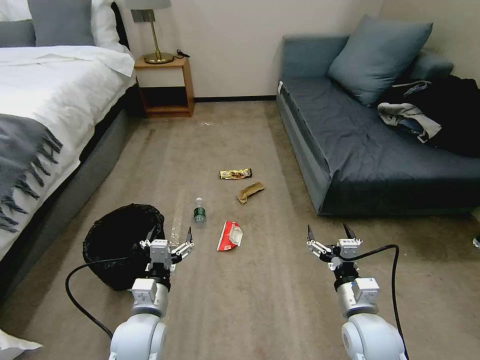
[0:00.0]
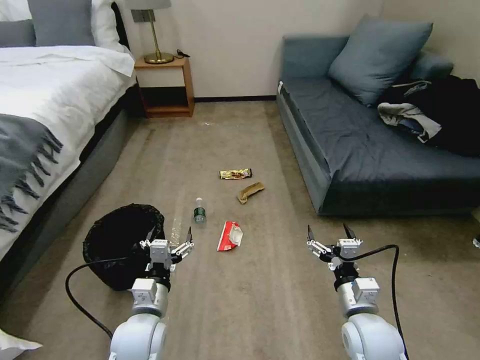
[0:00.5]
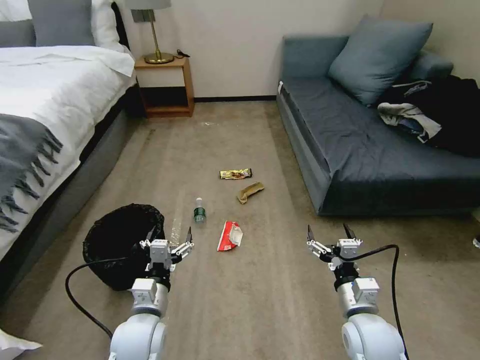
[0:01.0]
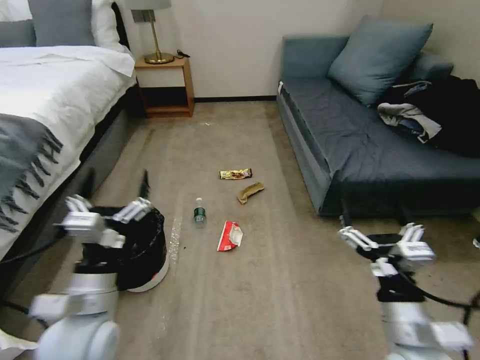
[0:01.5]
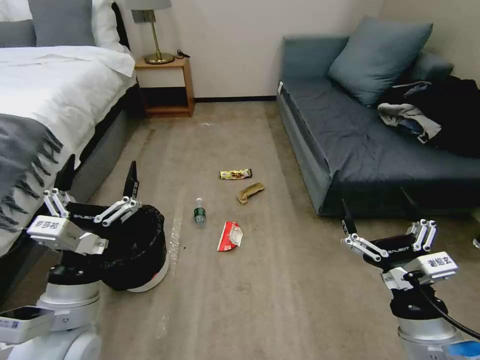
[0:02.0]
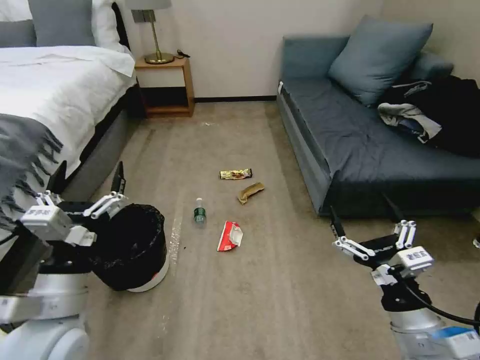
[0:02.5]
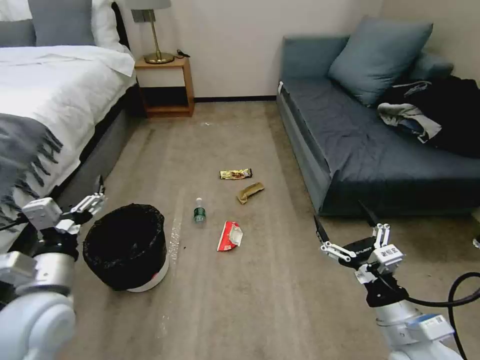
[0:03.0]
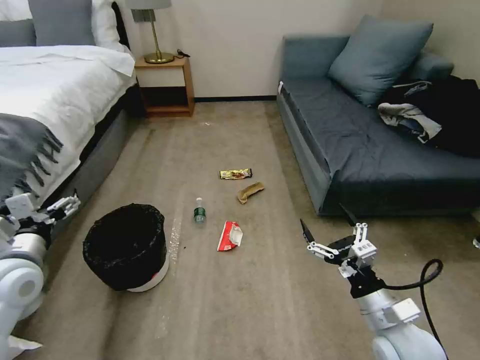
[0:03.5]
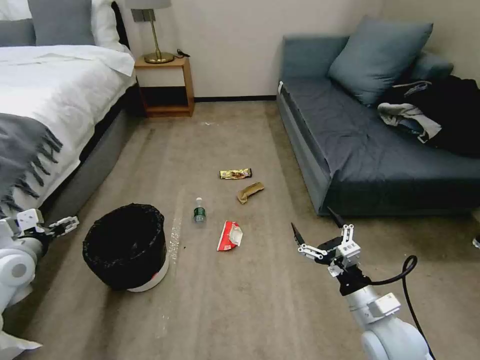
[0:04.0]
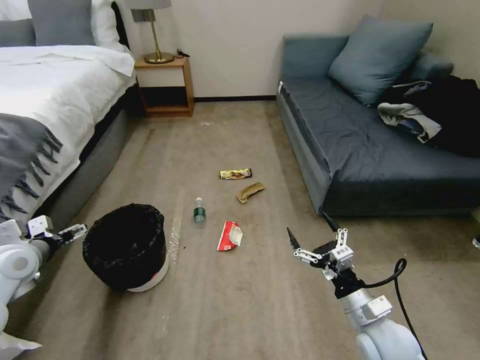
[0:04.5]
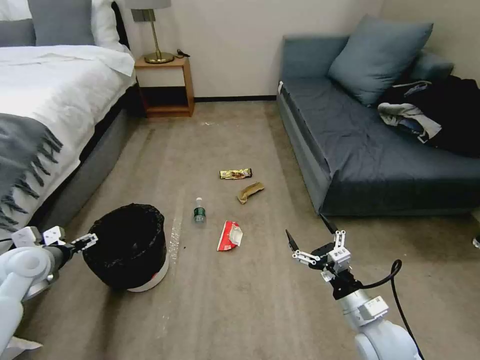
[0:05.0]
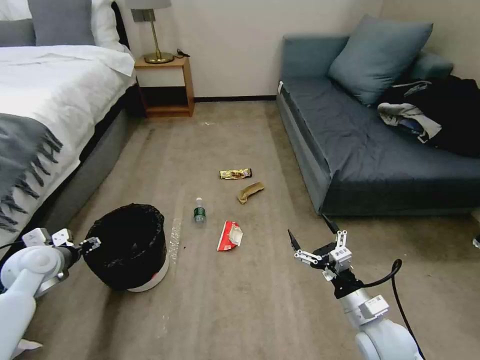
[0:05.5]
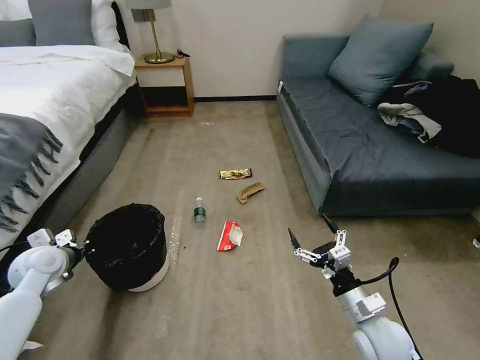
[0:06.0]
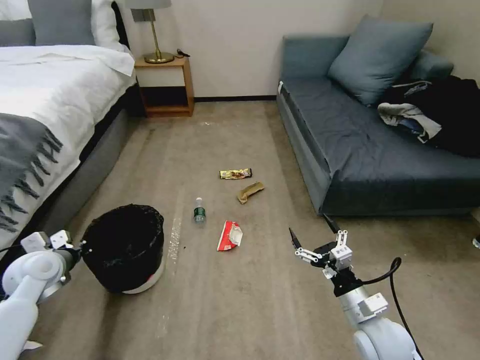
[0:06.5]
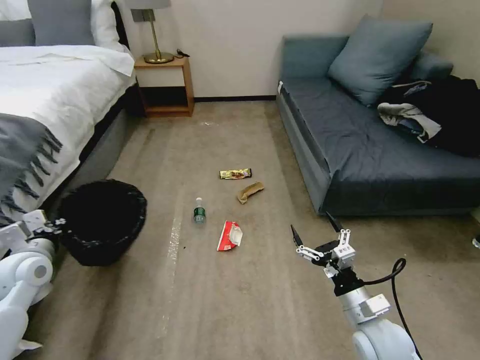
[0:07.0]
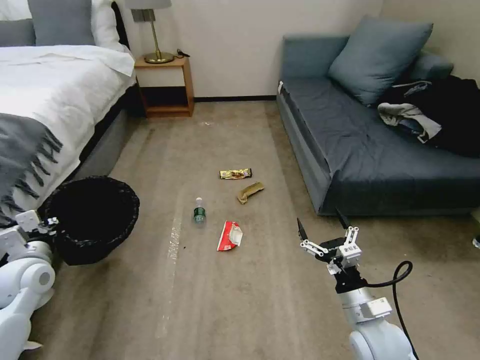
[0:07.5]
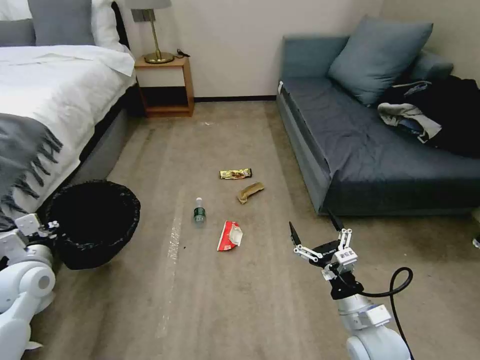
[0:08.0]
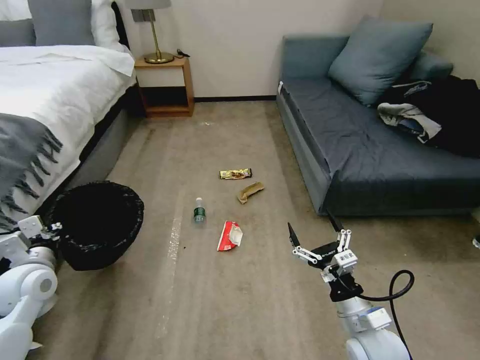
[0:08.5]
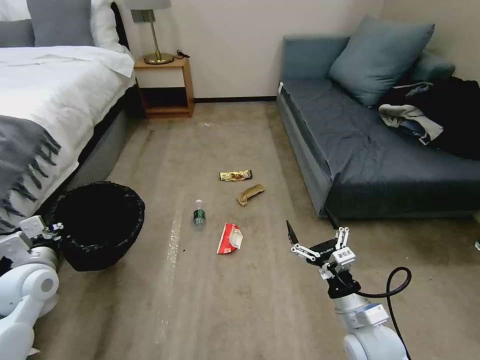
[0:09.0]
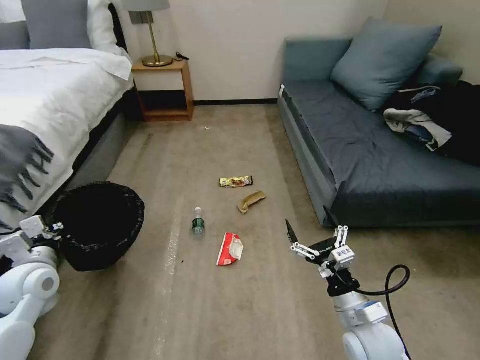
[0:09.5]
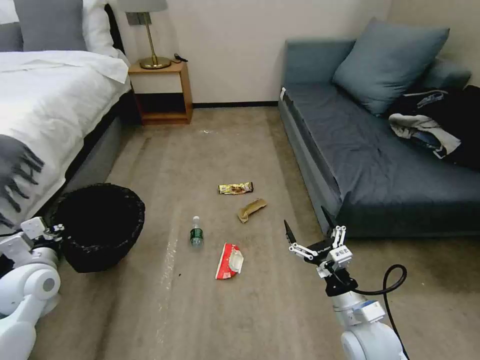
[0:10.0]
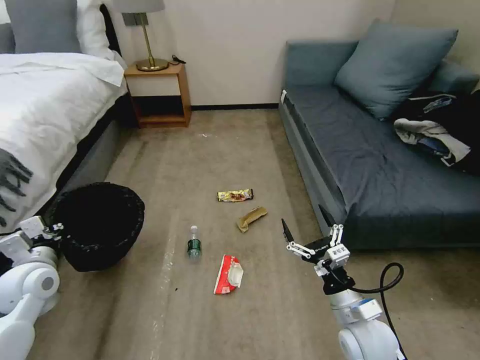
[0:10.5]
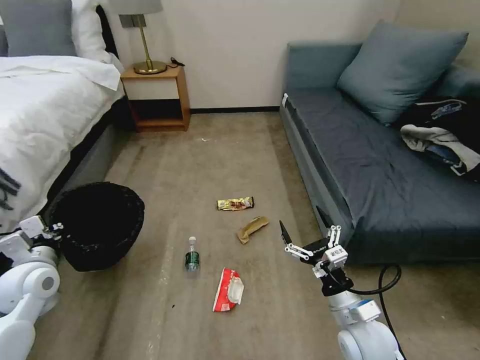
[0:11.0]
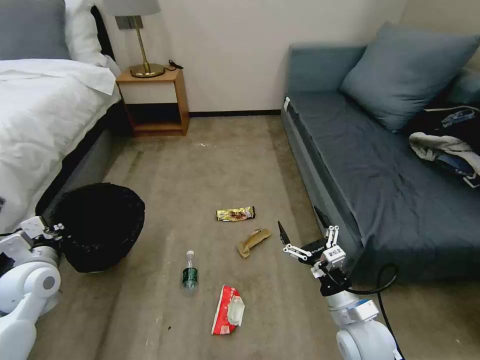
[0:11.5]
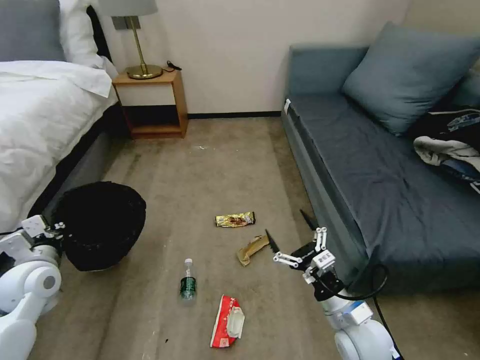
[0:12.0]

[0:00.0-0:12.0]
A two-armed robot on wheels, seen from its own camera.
Task of the whole recording: Pick up the trash bin, then pick up the garbage on the floor and place it into the trash bin.
0:02.0 to 0:04.0: The left gripper heads to the left and forward, covering approximately 25 cm, while the right gripper moves downward and forward, some 10 cm.
0:04.0 to 0:06.0: The left gripper travels downward by some 5 cm, and closes.
0:06.0 to 0:08.0: The left gripper changes place by approximately 5 cm.

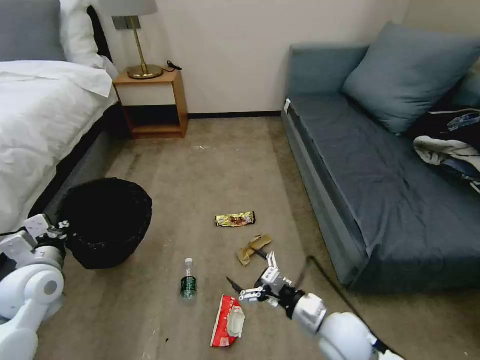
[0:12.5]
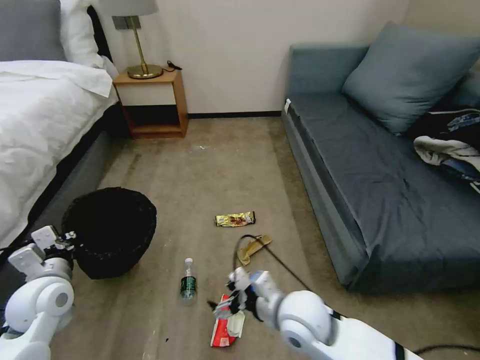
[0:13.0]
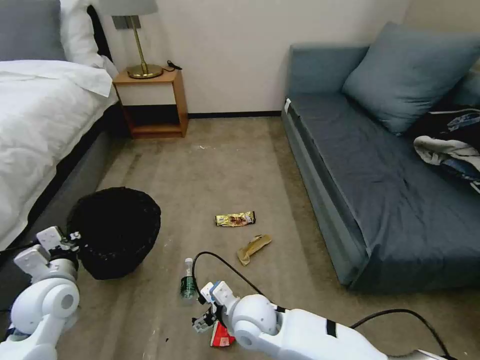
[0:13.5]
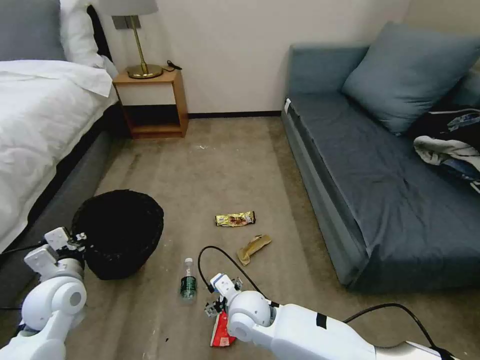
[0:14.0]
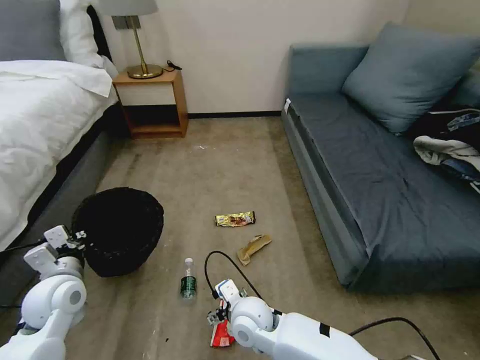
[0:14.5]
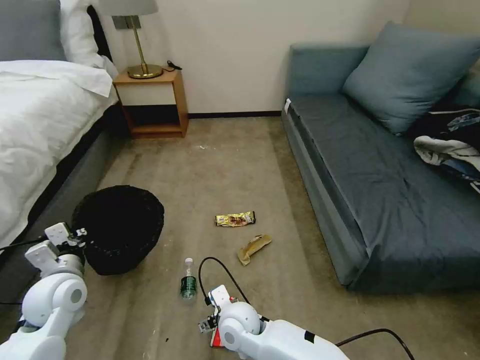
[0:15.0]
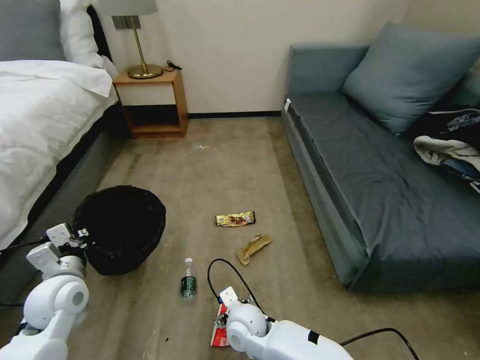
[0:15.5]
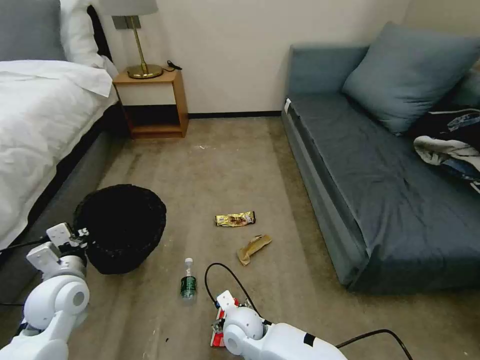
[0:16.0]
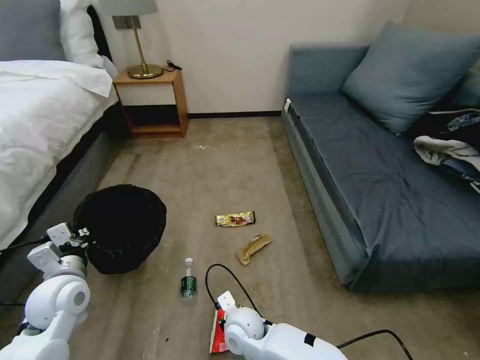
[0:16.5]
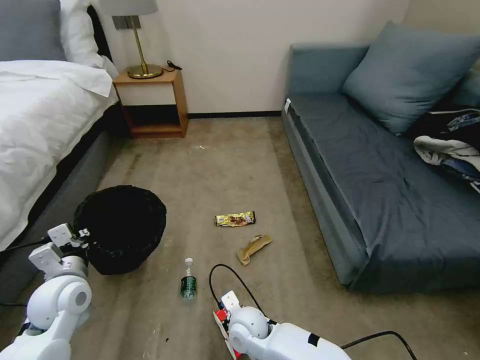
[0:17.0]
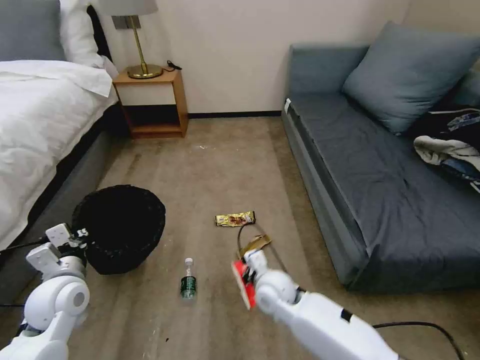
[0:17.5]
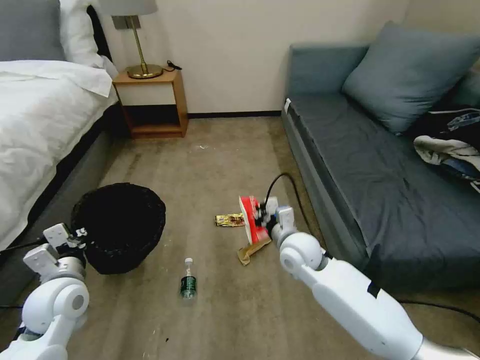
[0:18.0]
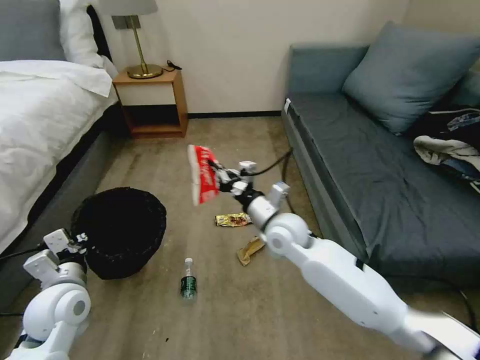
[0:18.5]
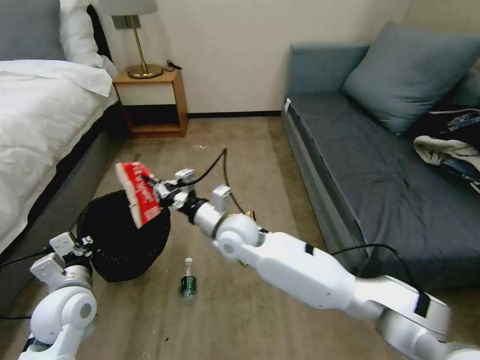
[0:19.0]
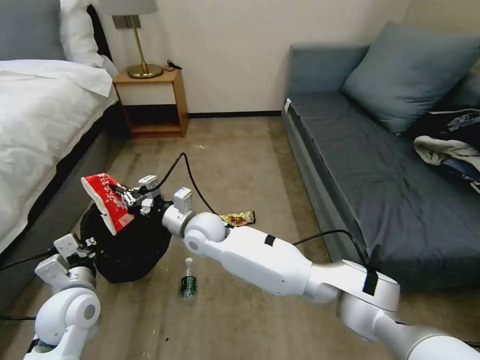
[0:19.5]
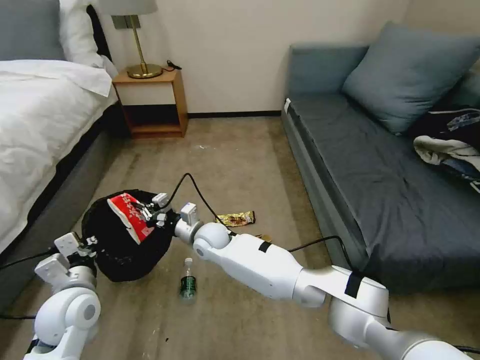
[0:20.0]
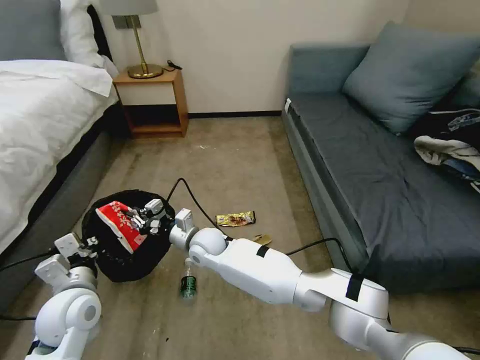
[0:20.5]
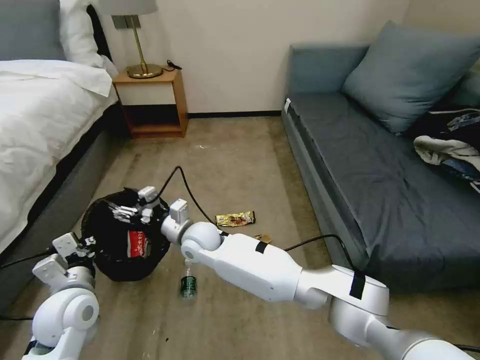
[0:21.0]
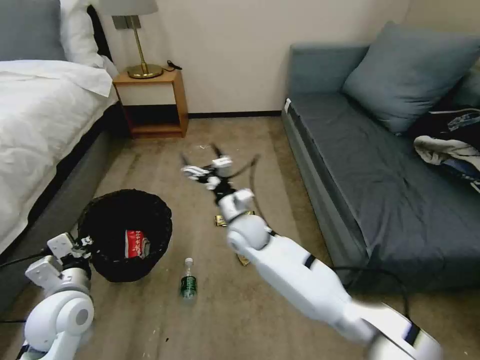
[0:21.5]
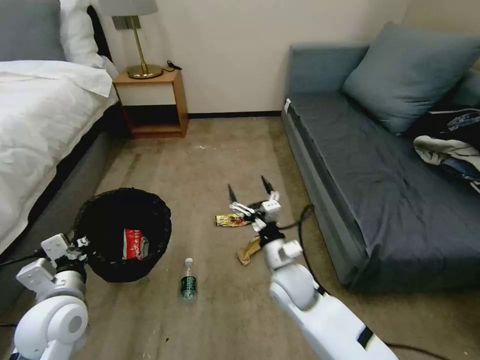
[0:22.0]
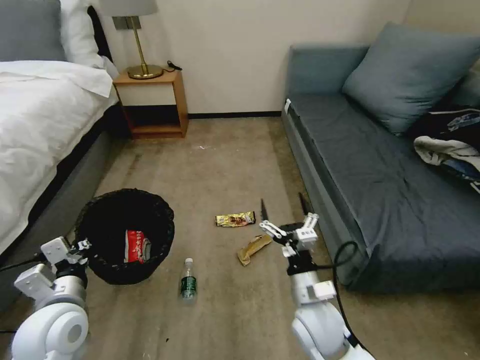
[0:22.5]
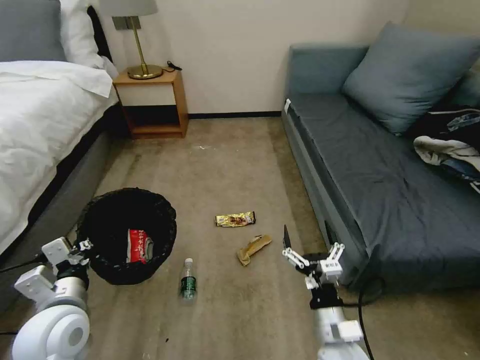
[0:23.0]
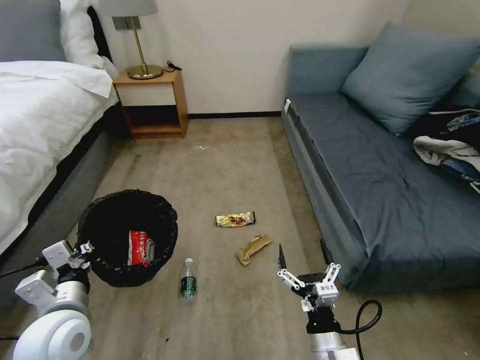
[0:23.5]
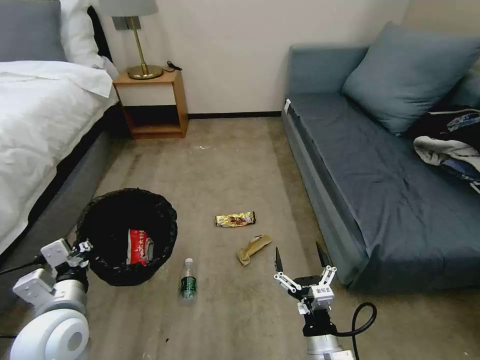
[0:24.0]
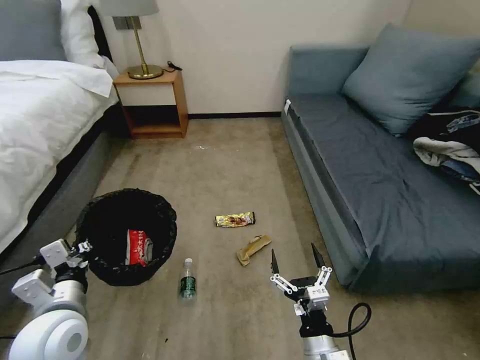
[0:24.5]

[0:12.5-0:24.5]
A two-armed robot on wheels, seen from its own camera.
Task of the whole recording: Pick up the trash bin, then pick up the garbage on the floor and place it into the trash bin.
0:12.5 to 0:14.5: The right gripper shifts some 20 cm to the left, while the left gripper moves some 5 cm.
0:14.5 to 0:16.5: The right gripper shifts about 5 cm downward, and closes its fingers.
0:16.5 to 0:18.5: The right gripper travels upward, forward and to the right by approximately 25 cm, and closes up.
0:18.5 to 0:20.5: The right gripper heads to the left and downward, covering roughly 20 cm.
0:20.5 to 0:22.5: The right gripper travels to the right and backward by roughly 30 cm, and opens up.
0:22.5 to 0:24.5: The right gripper moves backward, roughly 10 cm.

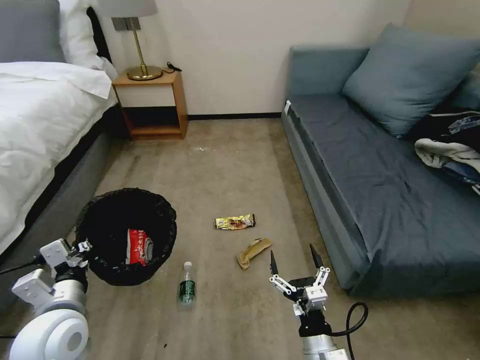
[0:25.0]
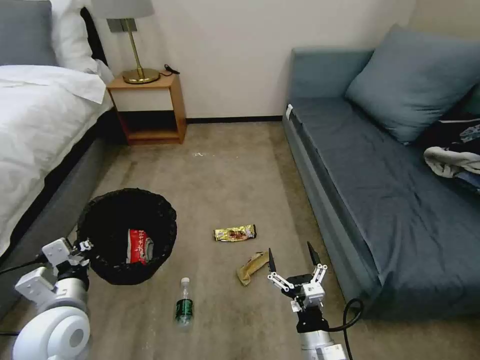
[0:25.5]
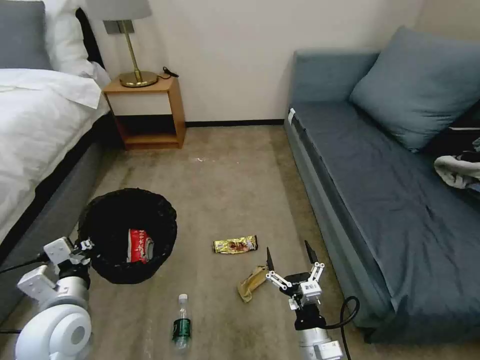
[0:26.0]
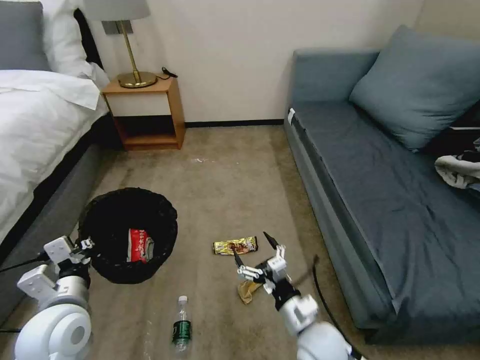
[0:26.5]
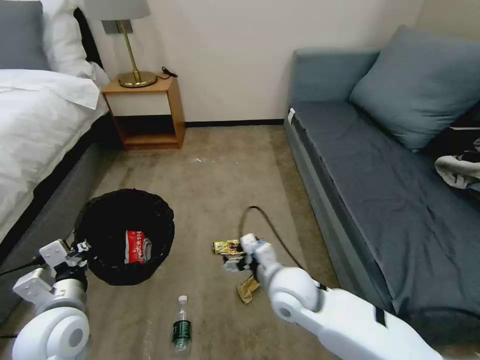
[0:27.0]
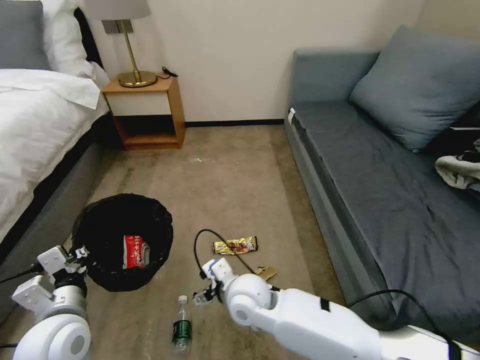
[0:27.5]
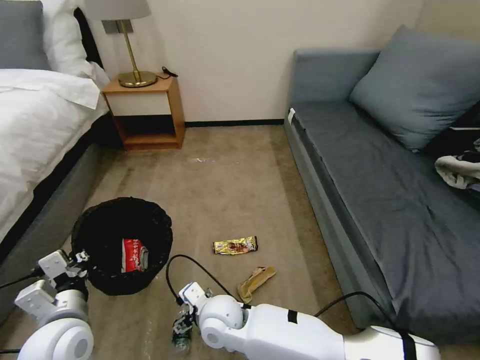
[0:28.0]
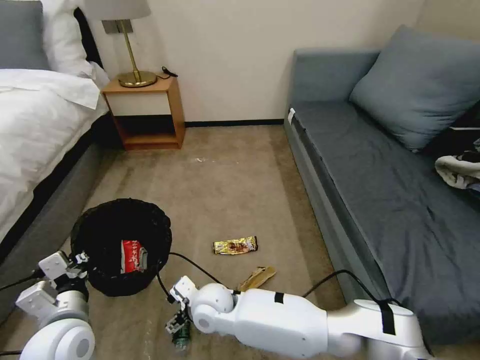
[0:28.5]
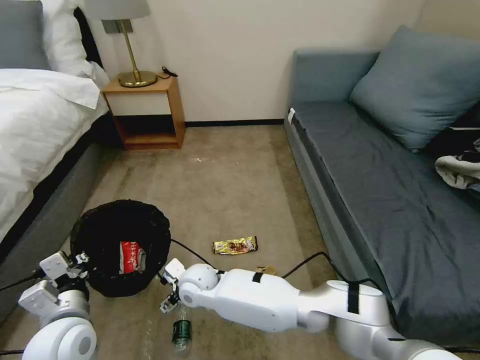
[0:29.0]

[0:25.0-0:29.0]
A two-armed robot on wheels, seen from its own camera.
Task of the whole recording: Pick up the trash bin, then pick up the garbage on the floor and place it into the trash bin.
0:25.0 to 0:27.0: The right gripper heads forward and upward, covering approximately 20 cm.
0:27.0 to 0:29.0: The right gripper is displaced to the left by some 20 cm.
